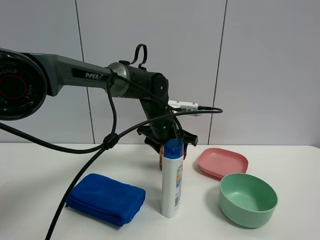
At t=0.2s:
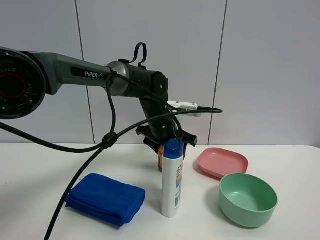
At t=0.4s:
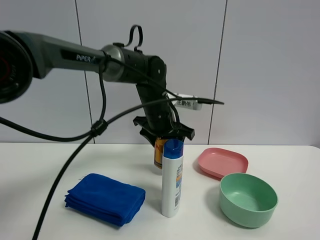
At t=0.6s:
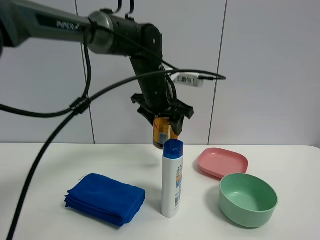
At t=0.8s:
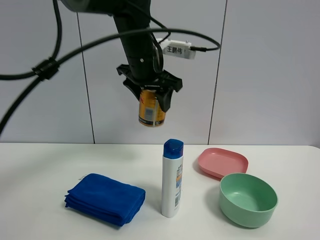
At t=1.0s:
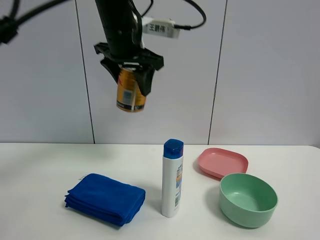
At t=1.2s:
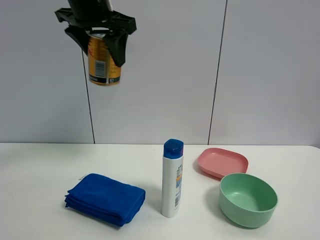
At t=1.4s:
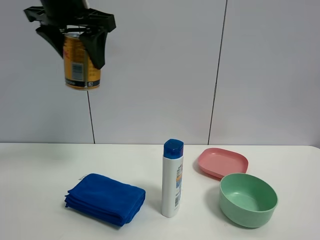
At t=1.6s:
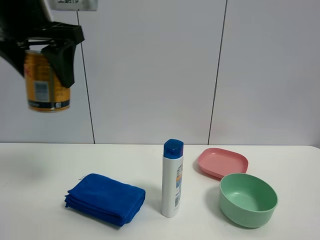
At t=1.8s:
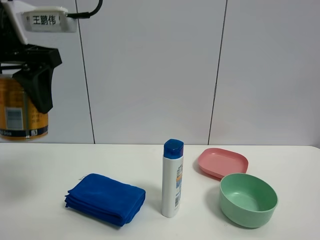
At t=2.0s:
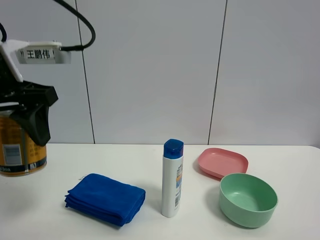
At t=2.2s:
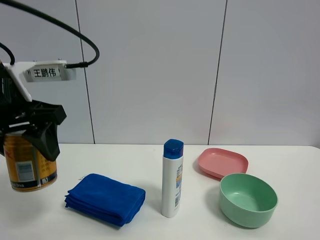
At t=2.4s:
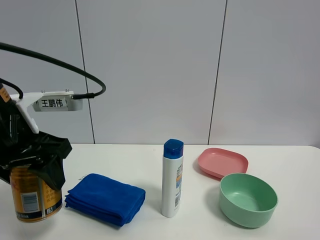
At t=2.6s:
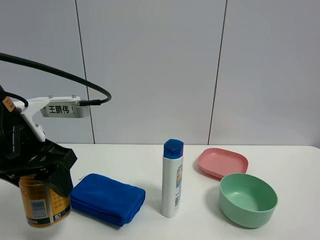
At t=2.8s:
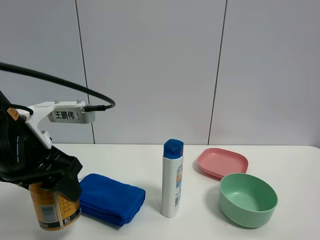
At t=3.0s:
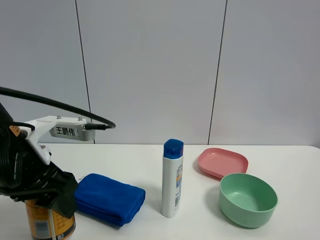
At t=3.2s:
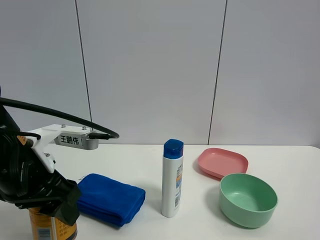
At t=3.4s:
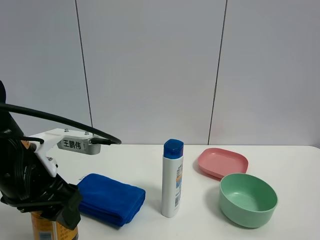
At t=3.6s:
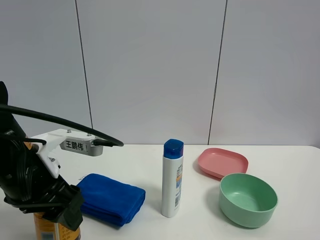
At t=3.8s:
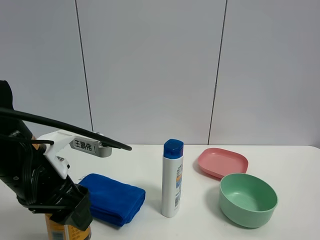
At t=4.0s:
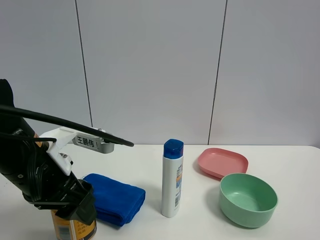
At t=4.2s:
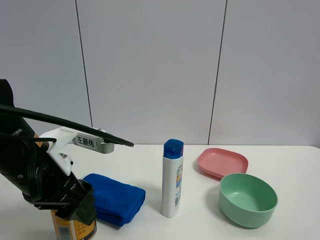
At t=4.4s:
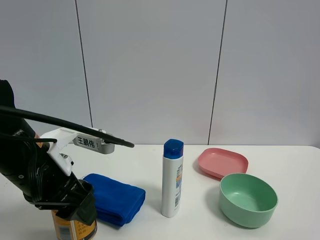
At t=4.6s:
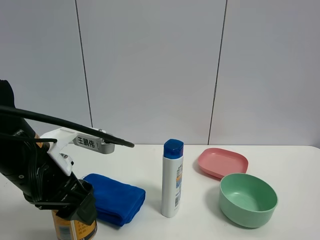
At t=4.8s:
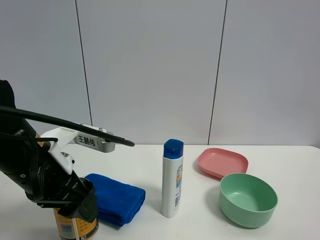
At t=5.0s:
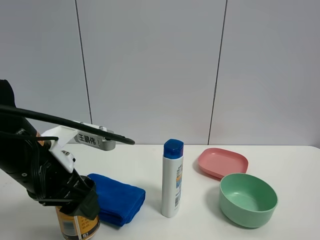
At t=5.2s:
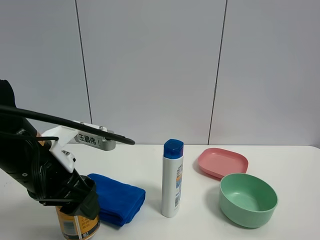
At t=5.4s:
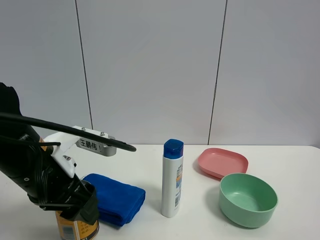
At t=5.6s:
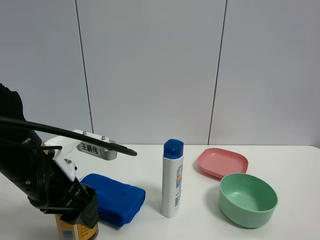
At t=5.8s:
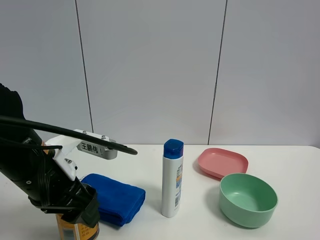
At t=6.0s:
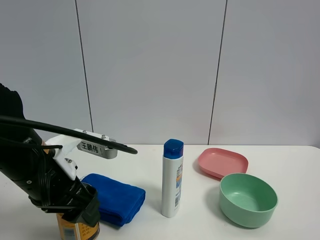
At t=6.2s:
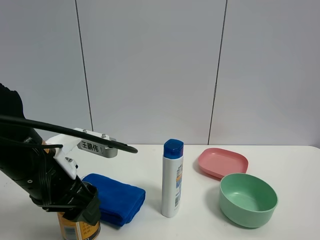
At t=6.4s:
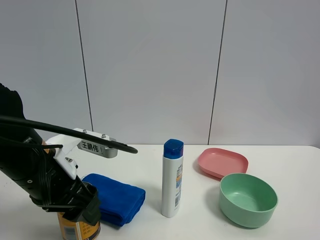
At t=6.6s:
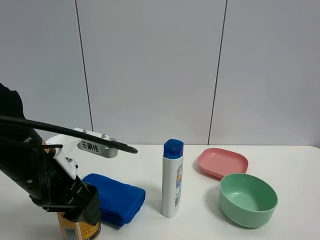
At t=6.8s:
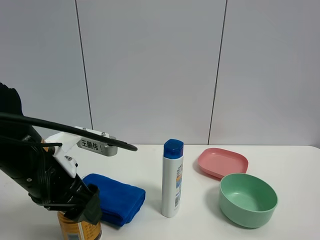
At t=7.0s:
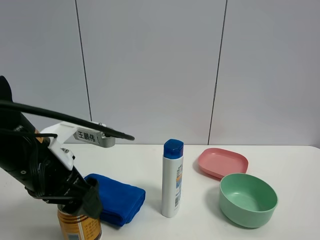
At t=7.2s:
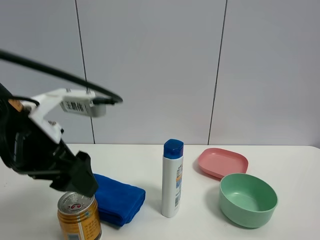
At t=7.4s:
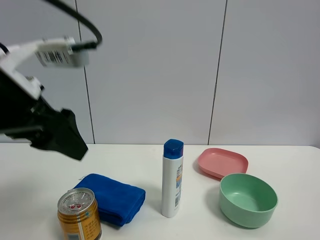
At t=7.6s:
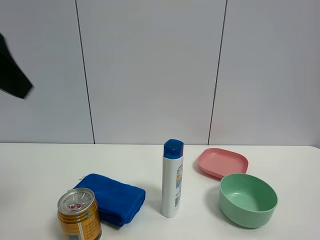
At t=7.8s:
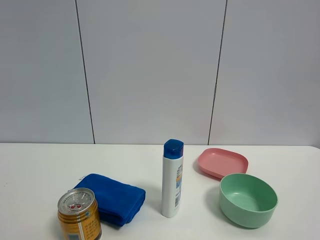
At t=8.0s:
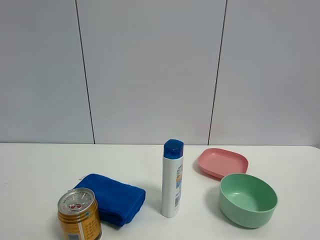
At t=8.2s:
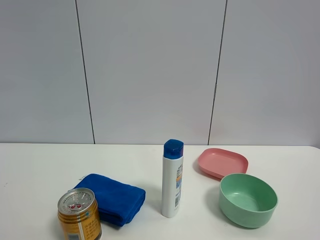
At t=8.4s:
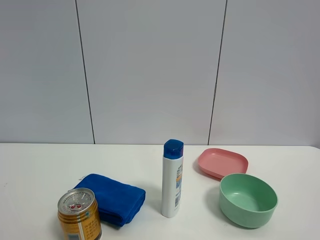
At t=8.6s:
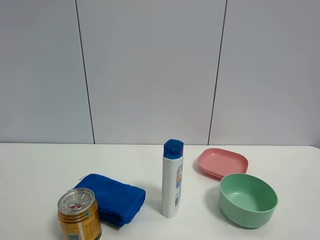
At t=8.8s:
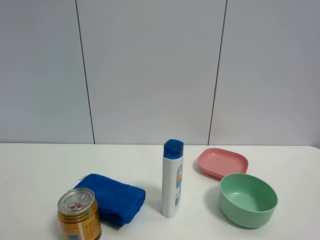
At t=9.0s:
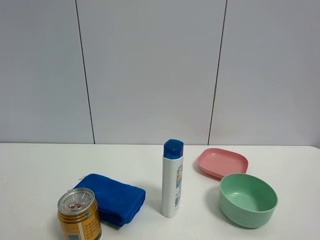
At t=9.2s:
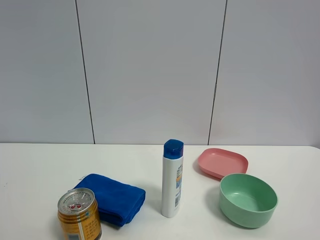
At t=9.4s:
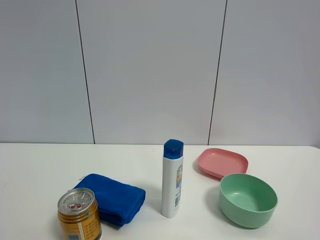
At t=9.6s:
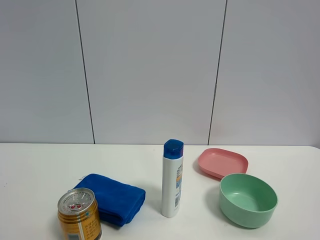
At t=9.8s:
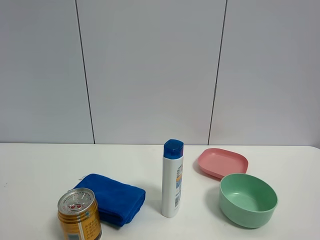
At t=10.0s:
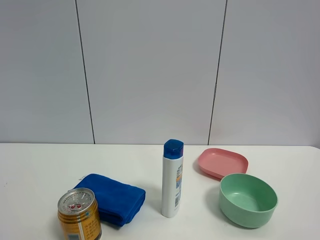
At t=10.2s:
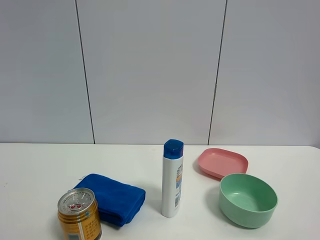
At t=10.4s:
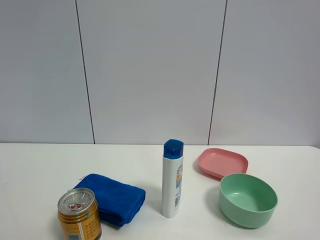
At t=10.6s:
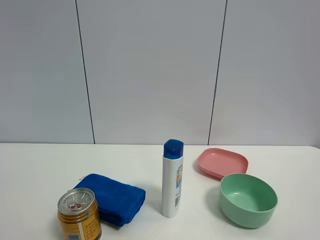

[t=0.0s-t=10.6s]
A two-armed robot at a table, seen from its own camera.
Task of the whole recording: the gripper move the object.
Step, t=0.2s to t=7.0s: Place the red bull on the table with the left gripper.
t=0.0s to t=1.6s: The left gripper is displaced upward, to the left and backward by about 35 cm.
t=1.6s to t=3.0s: The left gripper travels downward by roughly 20 cm.
t=3.0s to t=4.6s: The grippers stay close to where they were, moving slightly.
t=4.6s to t=6.0s: Neither gripper changes place.
t=6.0s to t=7.6s: The left gripper travels upward by about 20 cm, and opens up.
t=7.6s to t=9.0s: The left gripper goes approximately 20 cm backward, to the left and downward, and opens.
t=9.0s to t=10.6s: Both grippers stay put.

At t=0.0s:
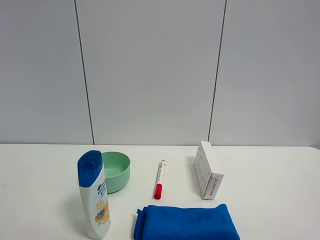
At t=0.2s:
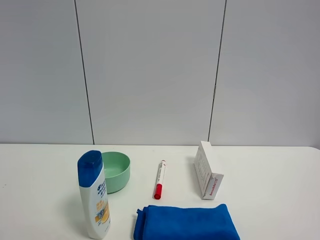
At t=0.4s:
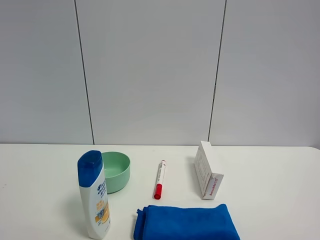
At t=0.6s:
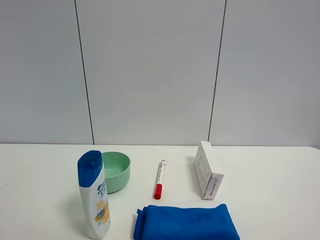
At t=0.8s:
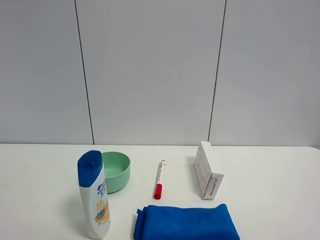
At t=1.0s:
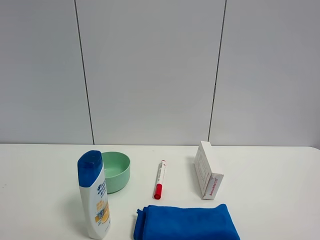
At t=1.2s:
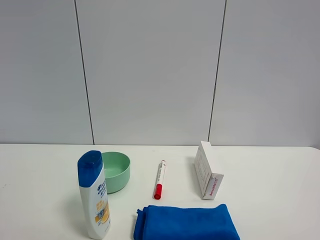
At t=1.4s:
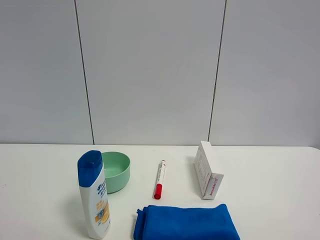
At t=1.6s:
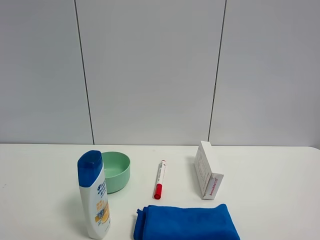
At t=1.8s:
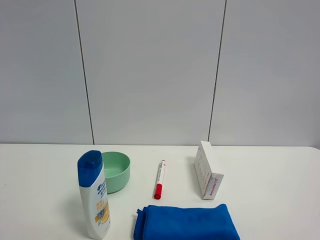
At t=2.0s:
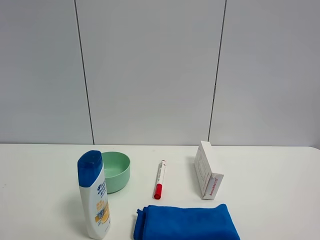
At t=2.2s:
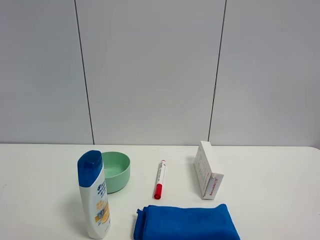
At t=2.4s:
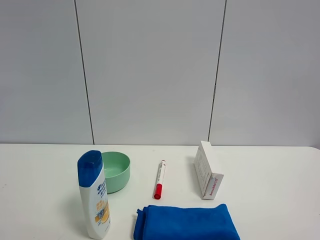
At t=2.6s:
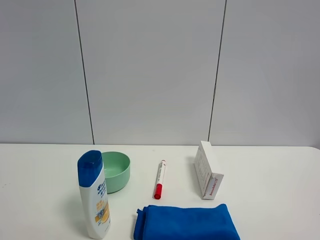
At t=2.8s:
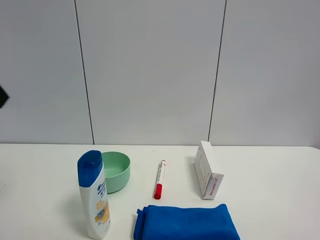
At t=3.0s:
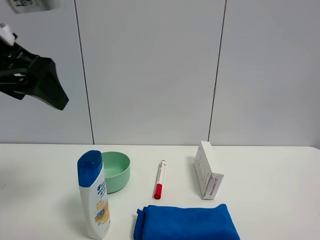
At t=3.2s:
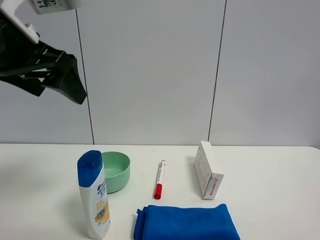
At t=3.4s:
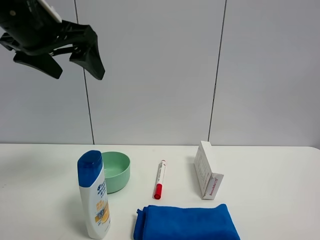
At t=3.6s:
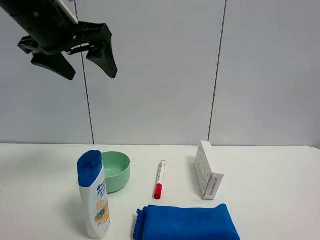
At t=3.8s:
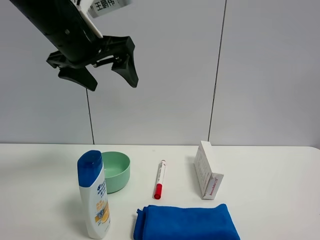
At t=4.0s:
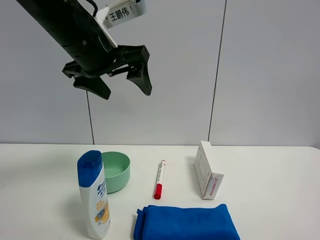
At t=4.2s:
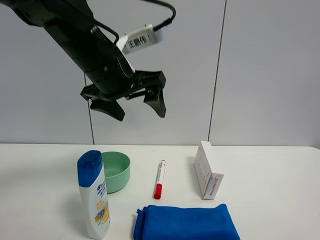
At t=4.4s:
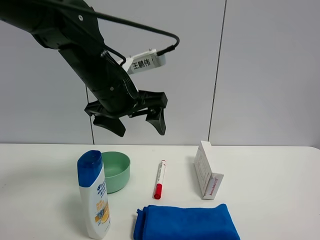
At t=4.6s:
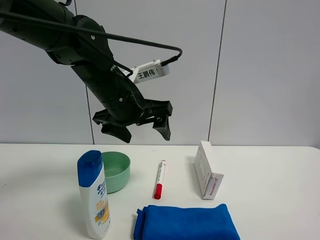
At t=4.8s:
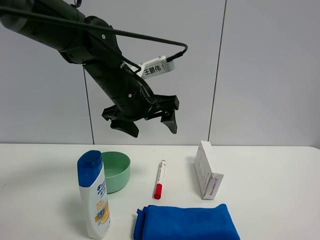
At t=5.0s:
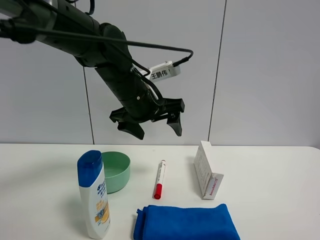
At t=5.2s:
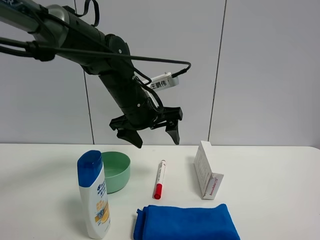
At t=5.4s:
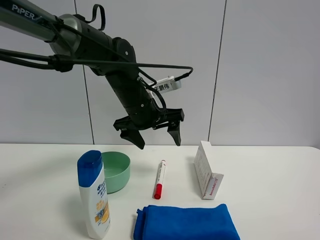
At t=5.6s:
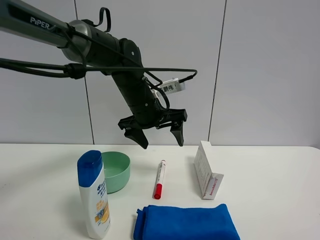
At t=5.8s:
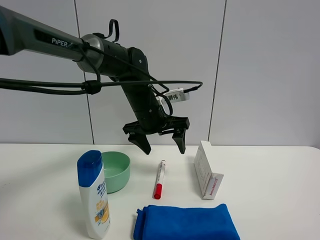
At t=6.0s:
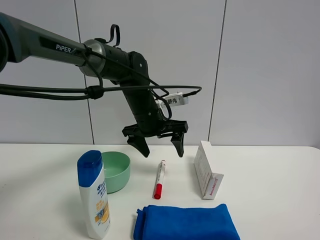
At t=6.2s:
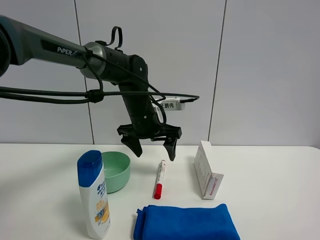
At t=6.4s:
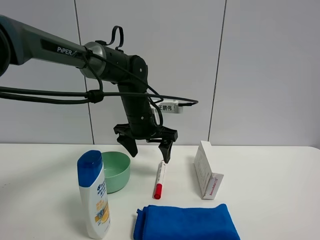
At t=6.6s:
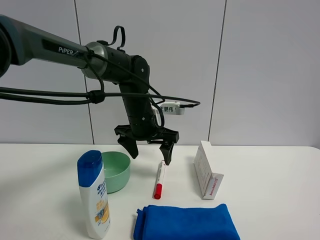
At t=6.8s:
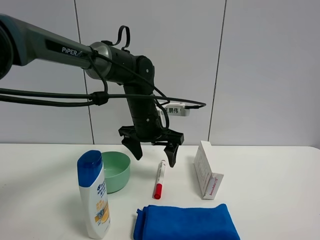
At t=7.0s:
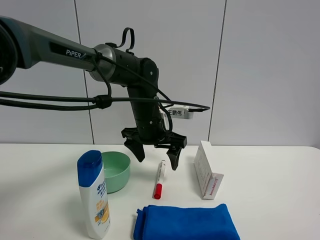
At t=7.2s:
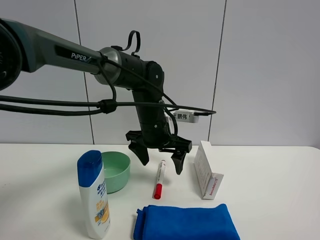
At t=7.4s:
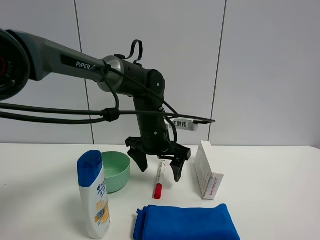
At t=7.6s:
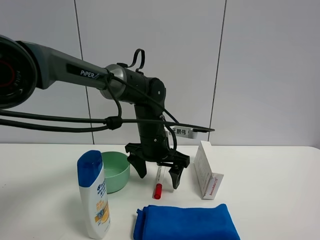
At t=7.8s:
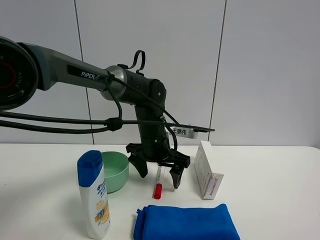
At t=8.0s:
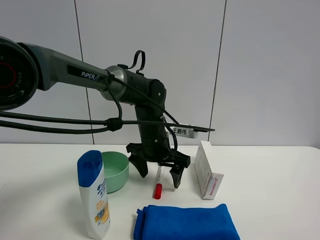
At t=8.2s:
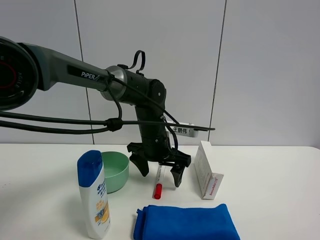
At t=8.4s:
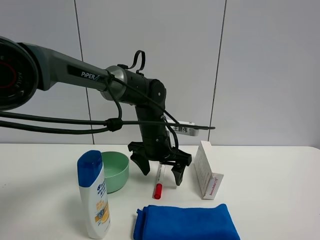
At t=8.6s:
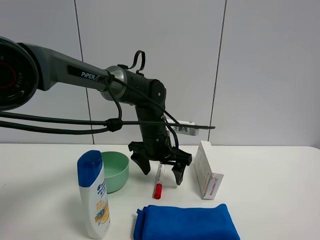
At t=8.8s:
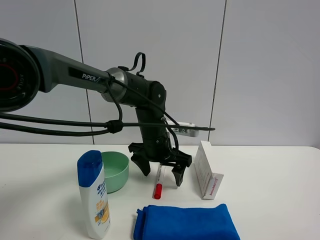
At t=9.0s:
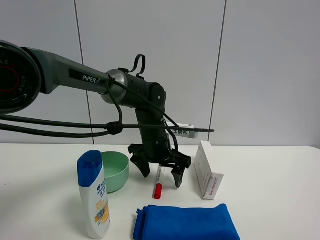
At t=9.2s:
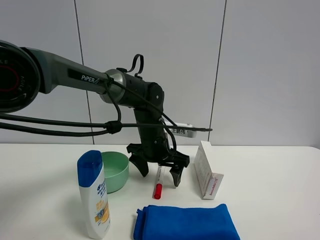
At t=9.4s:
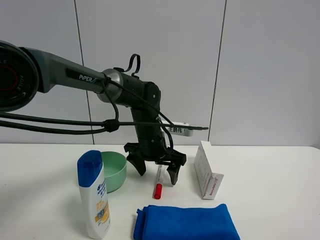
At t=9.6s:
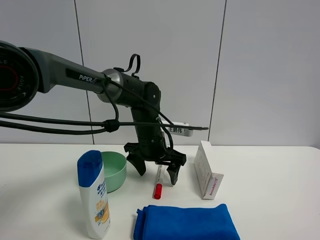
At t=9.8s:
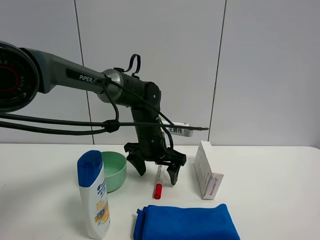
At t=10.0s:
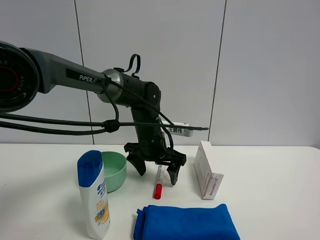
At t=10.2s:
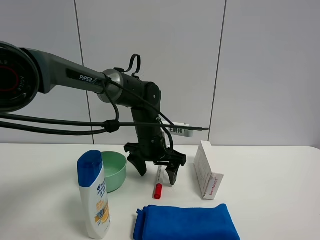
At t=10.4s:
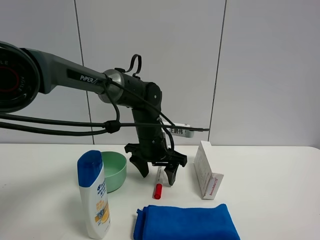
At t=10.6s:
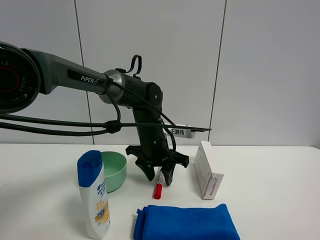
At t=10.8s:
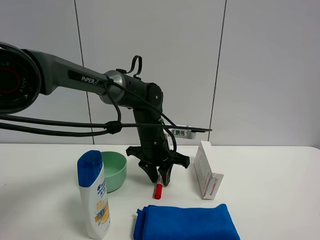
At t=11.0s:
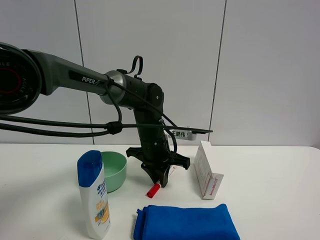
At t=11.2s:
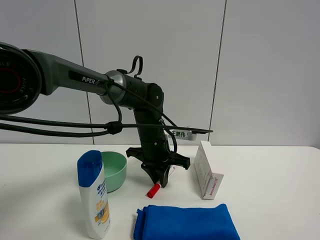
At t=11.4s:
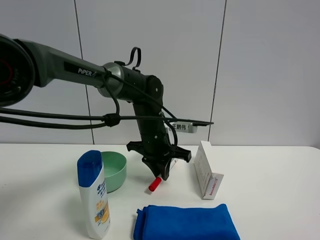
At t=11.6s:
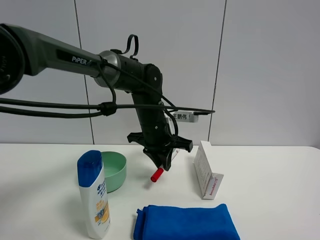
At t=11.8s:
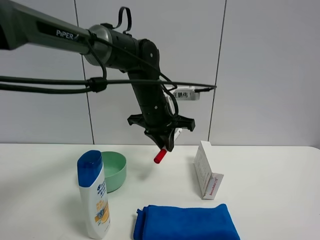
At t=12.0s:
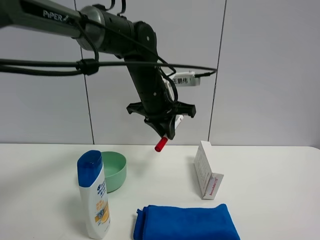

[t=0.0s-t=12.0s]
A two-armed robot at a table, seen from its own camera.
Task of the whole recording: the gripper move the object.
Step, t=0.0s to t=10.8s: Grasp the red marker pen with the left gripper.
t=1.6s to t=3.0s: The left gripper is displaced forward and to the right by approximately 20 cm.
t=3.0s to t=4.4s: The left gripper moves to the right, forward and downward, about 20 cm.
t=4.4s to t=6.0s: The left gripper travels forward and downward by some 10 cm.
t=6.0s to t=7.6s: The left gripper travels downward by approximately 5 cm.
t=7.6s to t=9.0s: The two grippers keep their place.
t=9.0s to t=10.4s: The two grippers keep their place.
t=10.4s to t=12.0s: The left gripper shifts approximately 15 cm upward, and closes.
